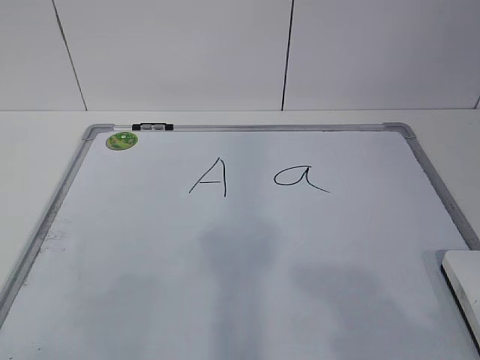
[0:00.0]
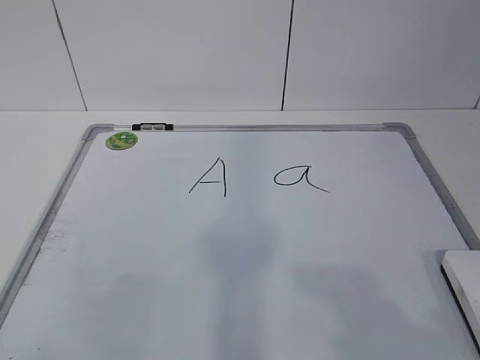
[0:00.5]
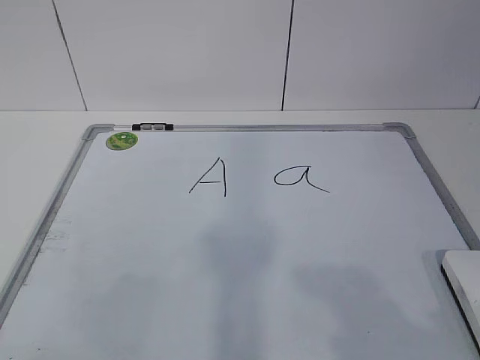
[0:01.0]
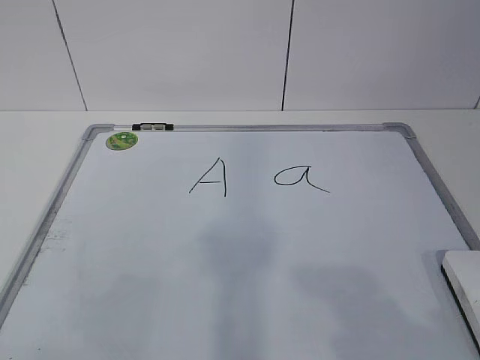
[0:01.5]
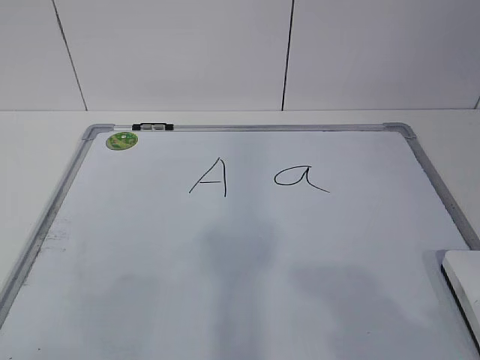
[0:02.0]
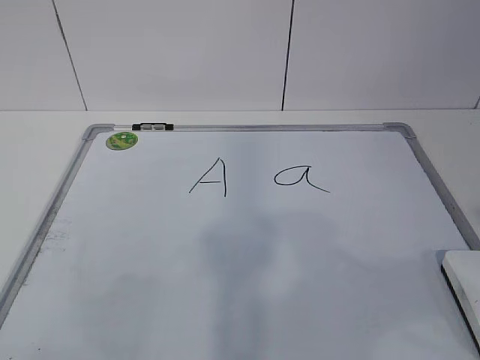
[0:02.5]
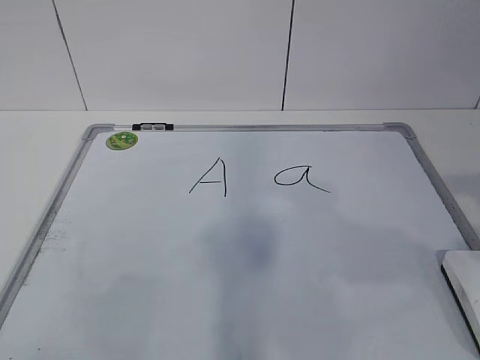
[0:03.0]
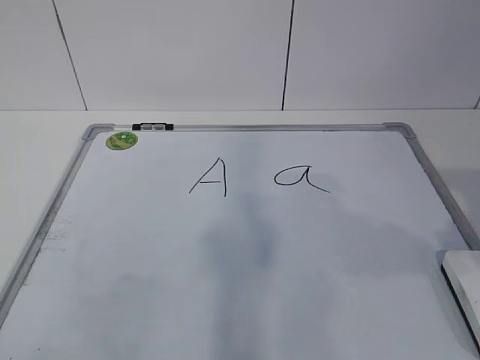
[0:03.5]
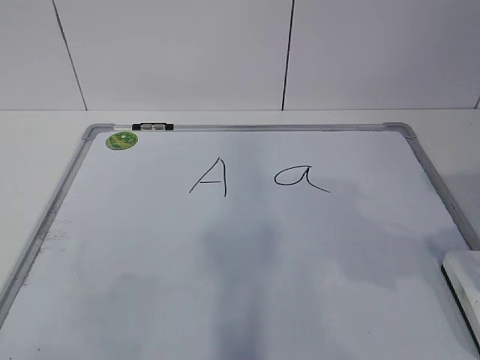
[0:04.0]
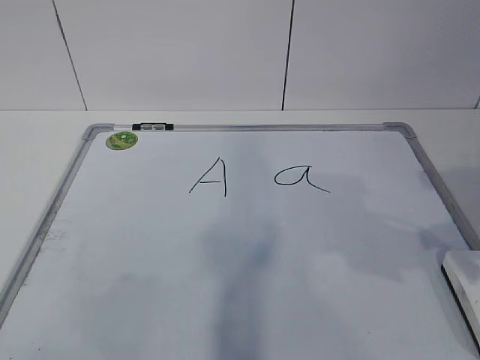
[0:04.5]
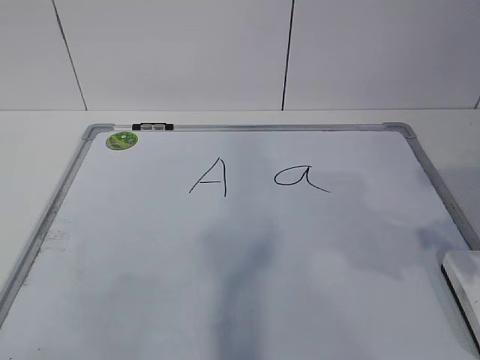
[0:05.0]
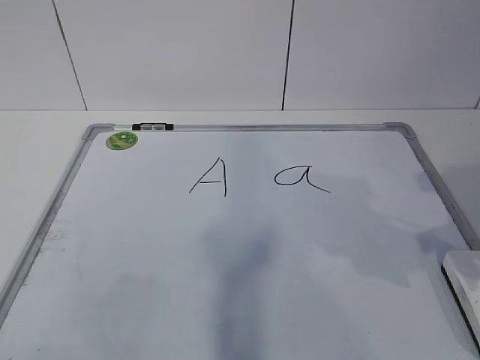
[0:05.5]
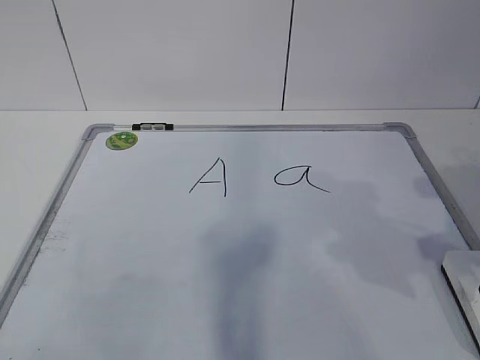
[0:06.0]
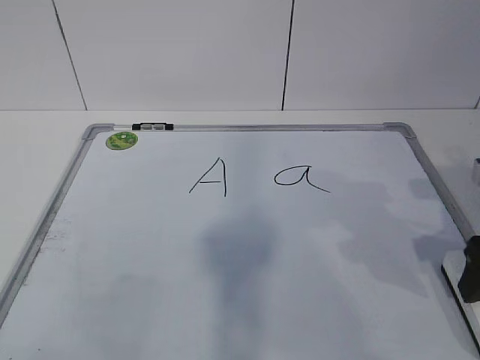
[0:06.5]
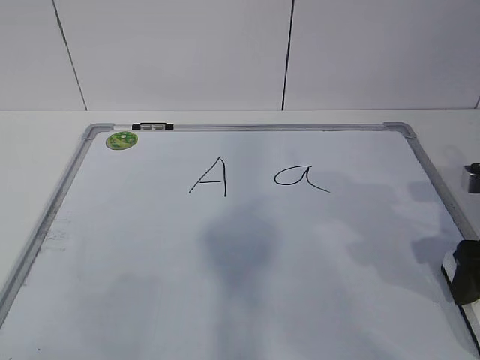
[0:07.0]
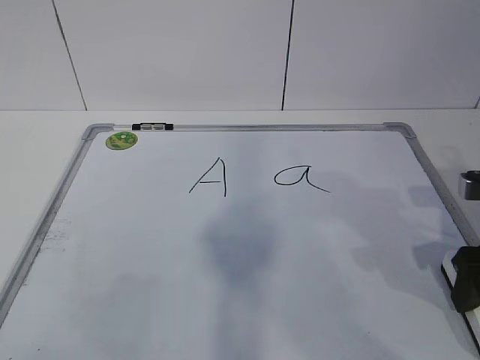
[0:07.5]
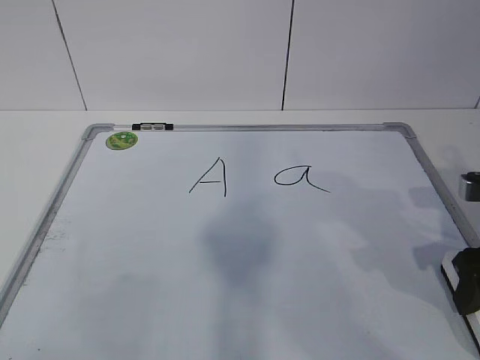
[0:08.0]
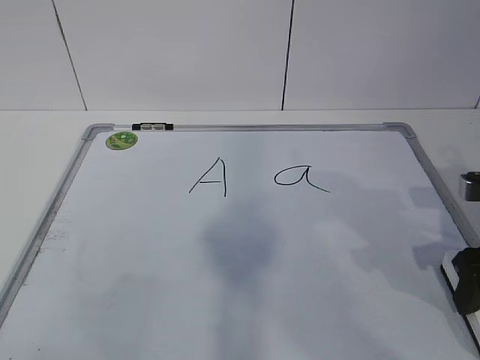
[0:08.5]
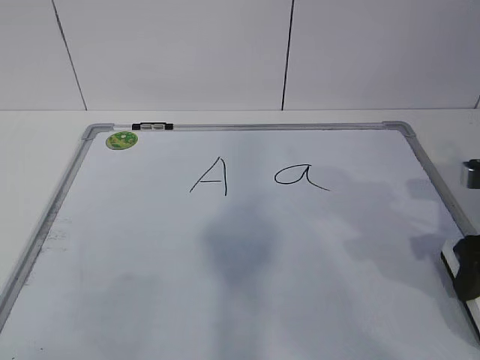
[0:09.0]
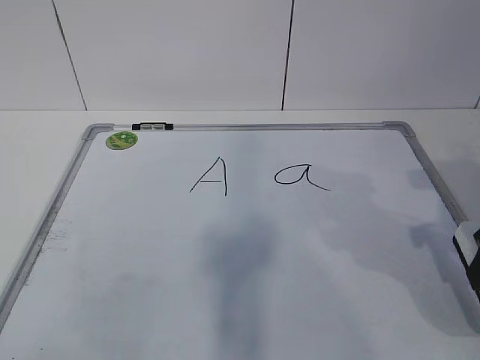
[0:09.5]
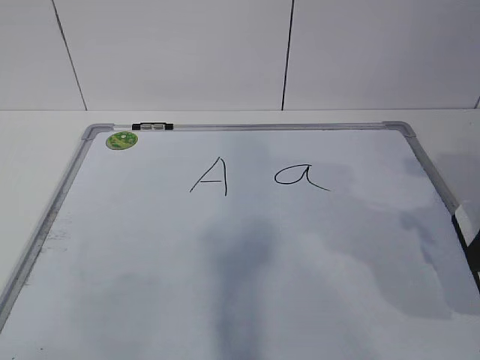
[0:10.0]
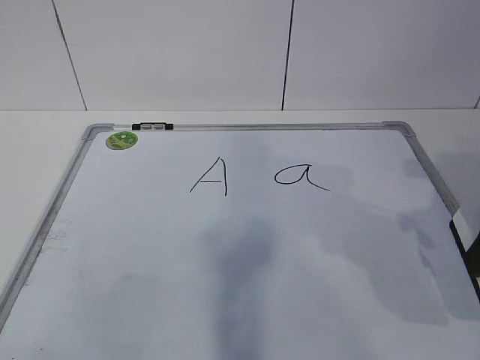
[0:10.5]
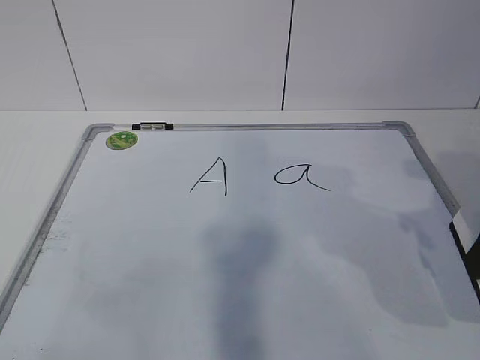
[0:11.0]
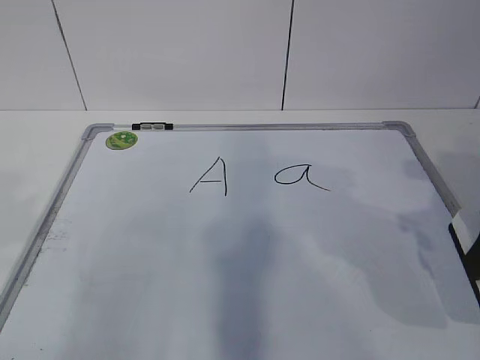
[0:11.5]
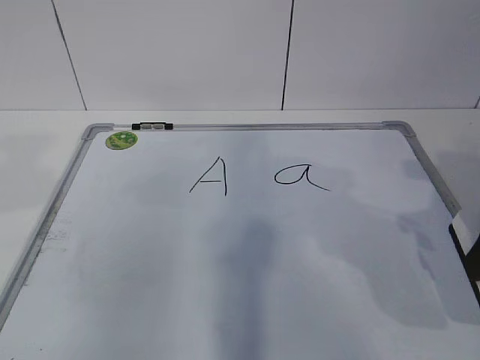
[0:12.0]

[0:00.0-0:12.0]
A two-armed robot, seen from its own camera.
Task of the whole recording: pick up the eraser on the blackboard and erase the letter "a".
2.0 to 4.0 s: The right gripper travels forward by roughly 15 cm.
6.0 to 8.0 s: The right gripper goes roughly 5 cm downward, and closes its fingers.
8.0 to 10.0 s: The right gripper moves upward, roughly 10 cm.

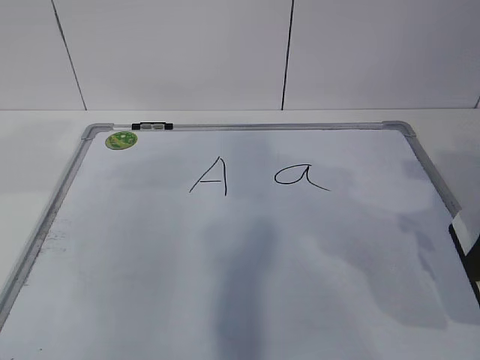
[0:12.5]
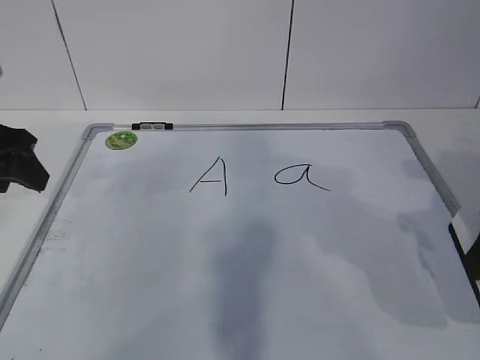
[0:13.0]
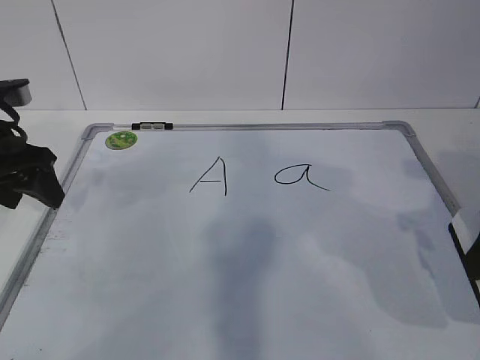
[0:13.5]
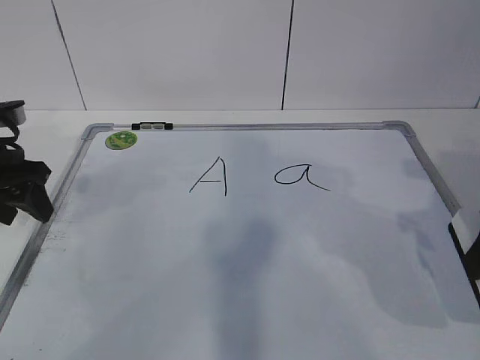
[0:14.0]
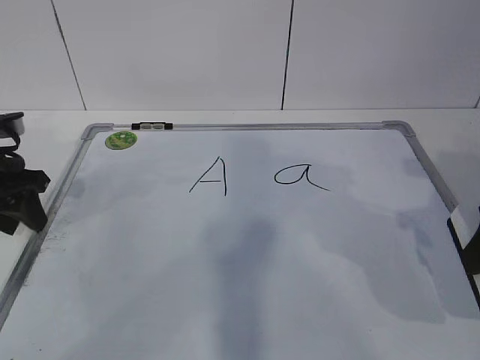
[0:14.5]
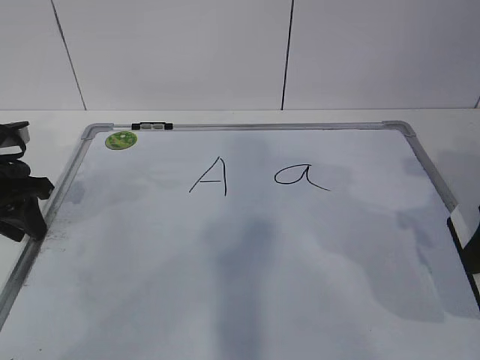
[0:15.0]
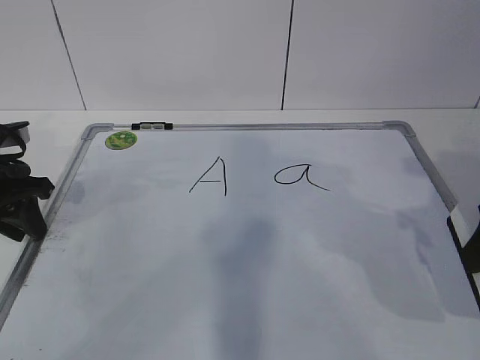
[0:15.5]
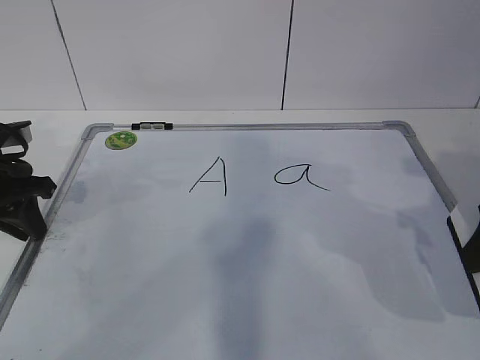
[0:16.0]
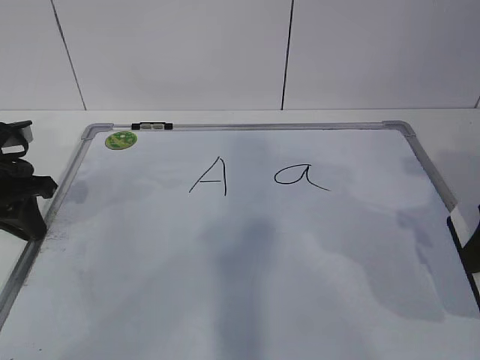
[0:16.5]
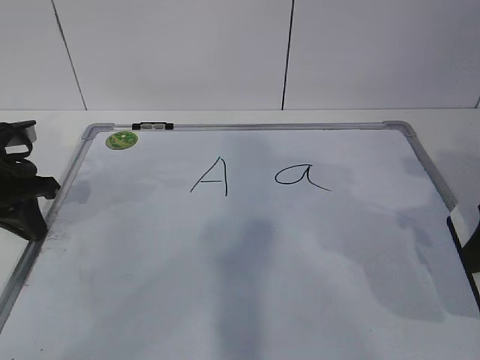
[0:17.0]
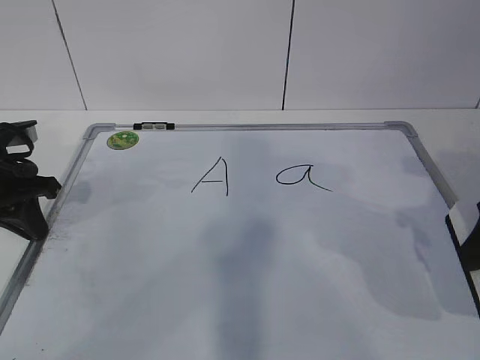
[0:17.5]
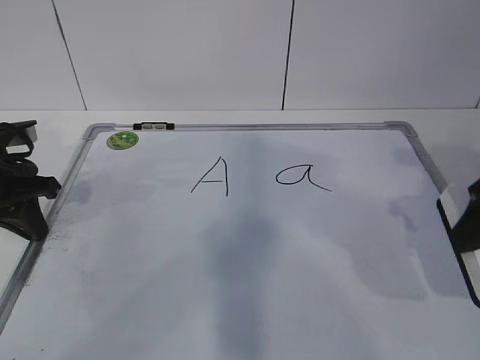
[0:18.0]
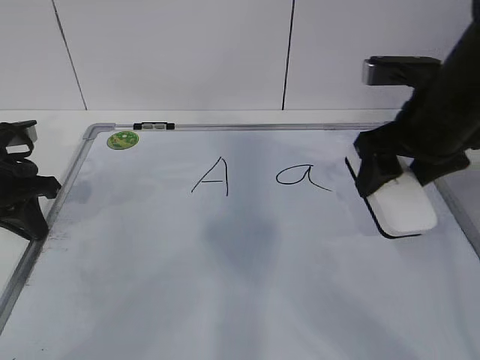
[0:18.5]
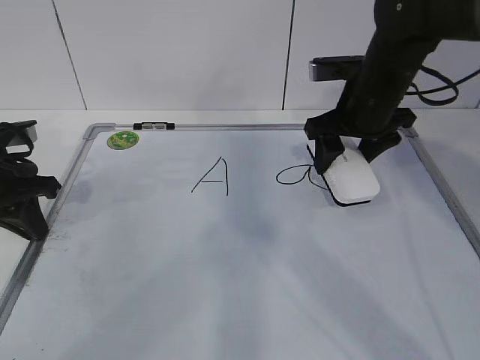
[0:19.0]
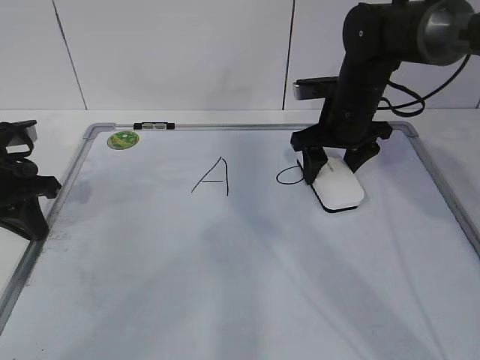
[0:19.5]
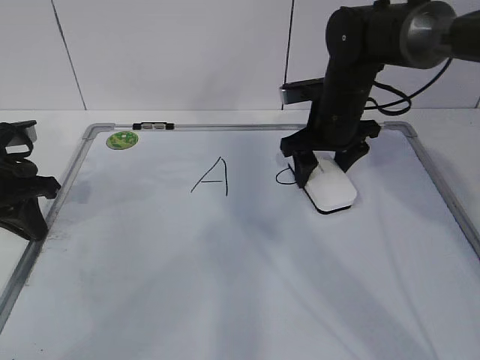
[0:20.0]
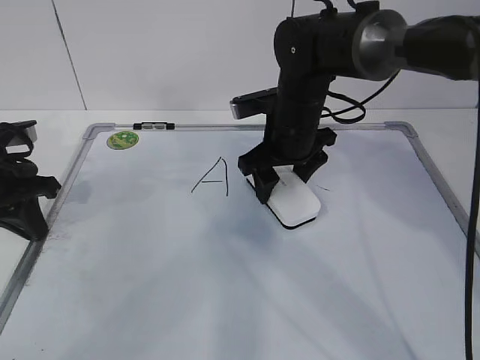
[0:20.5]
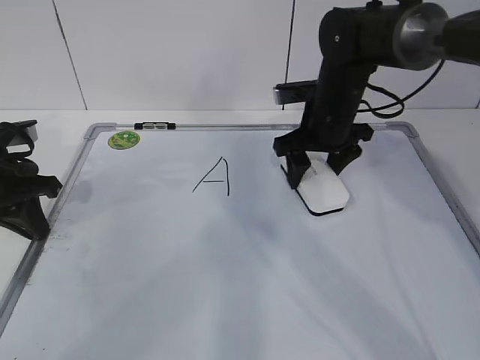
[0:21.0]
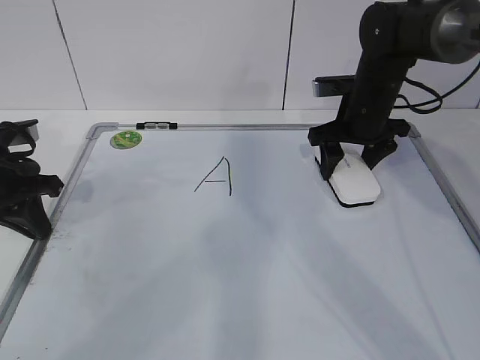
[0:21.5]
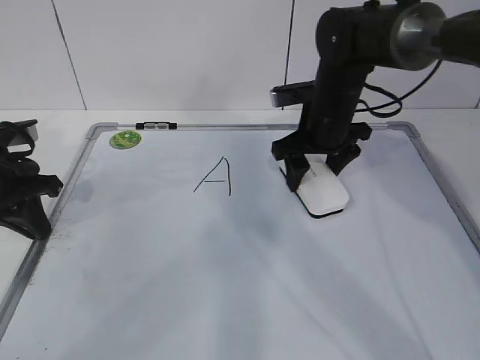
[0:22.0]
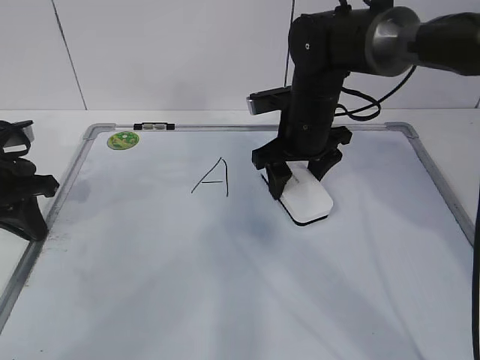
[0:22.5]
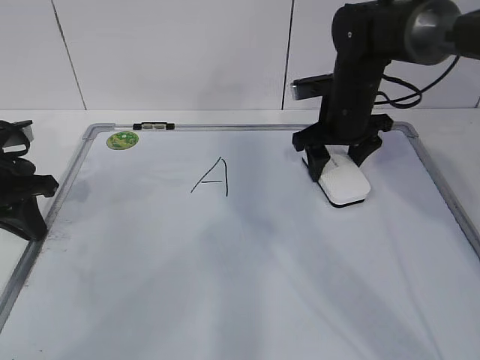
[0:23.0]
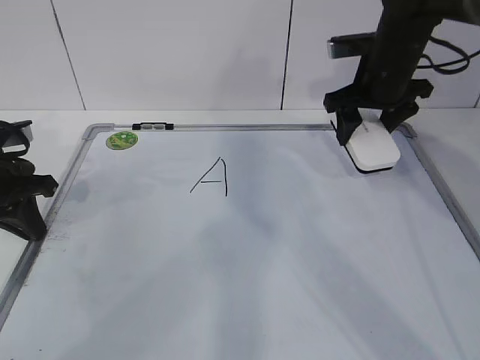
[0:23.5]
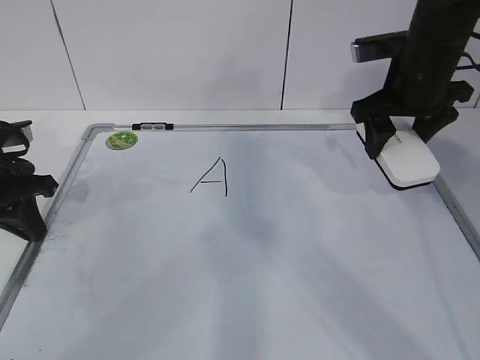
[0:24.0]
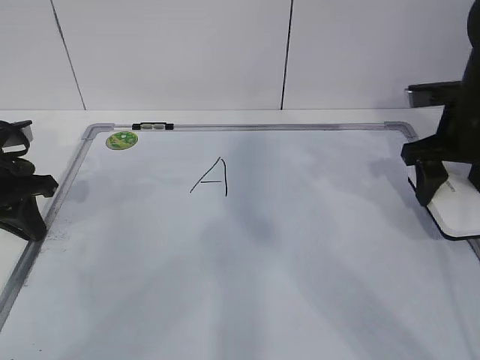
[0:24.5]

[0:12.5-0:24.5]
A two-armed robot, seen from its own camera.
Task of the whole recording: pick up the eraser on the blackboard and erase the letter "a".
Step, 14.0 to 19.0 s: Erase the letter a with your right hand.
Step, 19.5 to 21.5 s: Put down the eraser with your right hand.
12.5 to 14.5 s: The left gripper goes roughly 15 cm downward and forward.
14.5 to 16.5 s: The left gripper closes up.
16.5 to 18.5 s: The right gripper is displaced forward and to the left by approximately 15 cm.
18.5 to 20.5 s: The right gripper is displaced to the left, forward and downward by roughly 20 cm.
20.5 to 22.5 s: The right gripper reaches some 10 cm to the right, then returns.
22.5 to 24.5 s: The right gripper goes approximately 15 cm to the right.

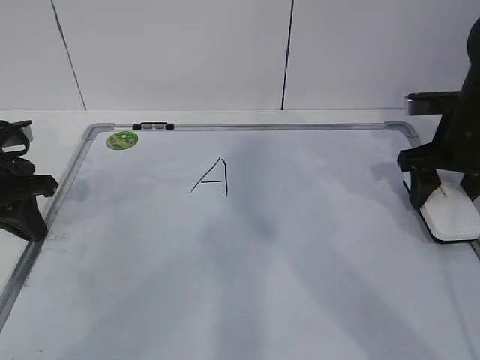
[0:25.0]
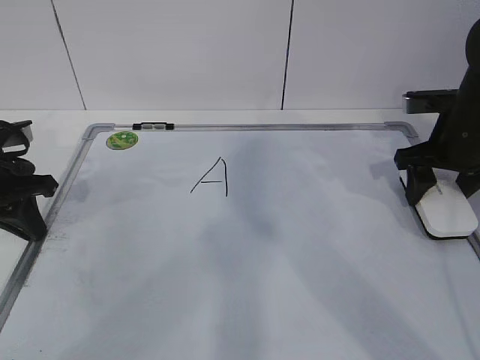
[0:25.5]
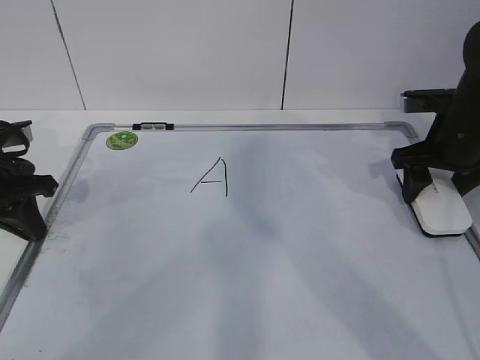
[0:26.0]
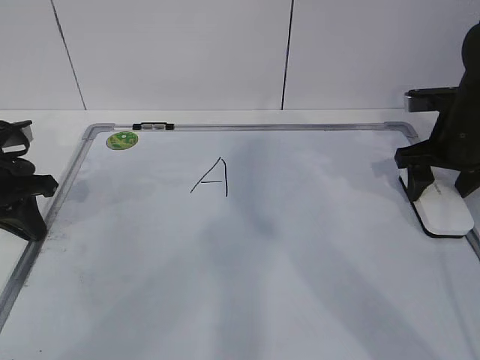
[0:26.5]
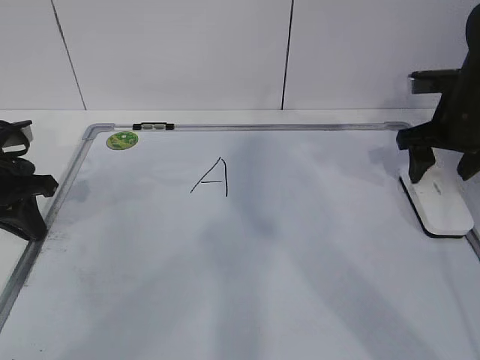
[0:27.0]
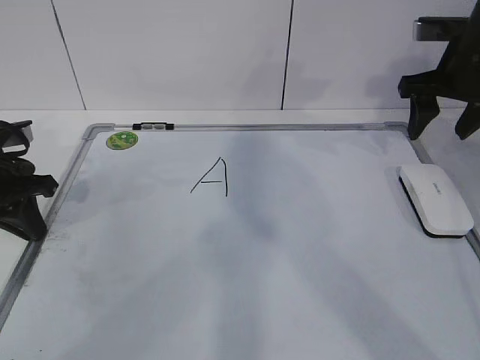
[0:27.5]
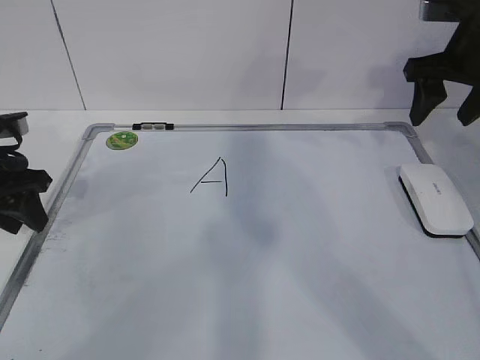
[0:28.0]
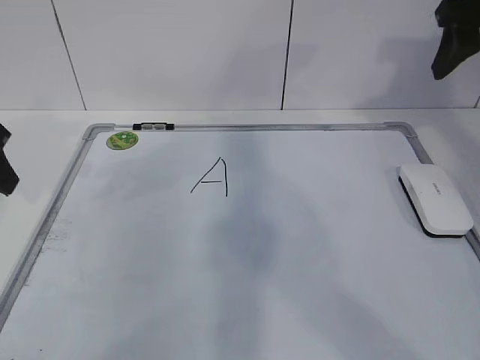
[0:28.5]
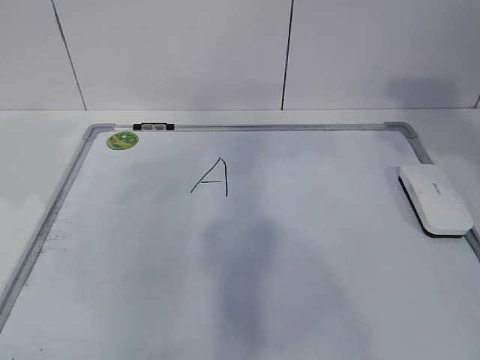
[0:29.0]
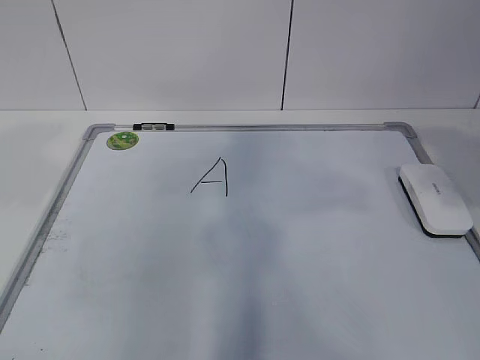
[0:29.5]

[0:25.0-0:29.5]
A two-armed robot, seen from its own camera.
Task of the whole recording: pick up the eraser on the blackboard and erase the letter "a".
25.0 to 27.0 s: The right gripper opens.
27.0 to 29.5 s: The right gripper heads backward and upward, covering roughly 25 cm, and closes its fingers; the left gripper travels upward and backward by roughly 25 cm, and opens up.
